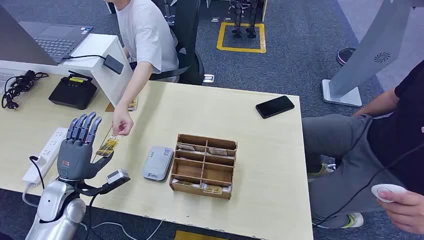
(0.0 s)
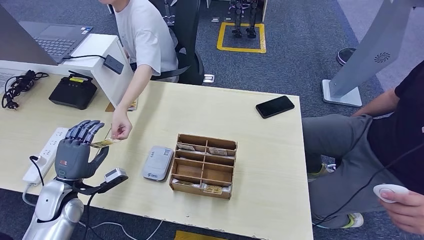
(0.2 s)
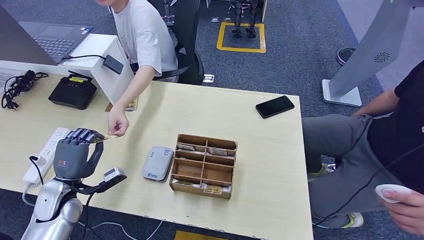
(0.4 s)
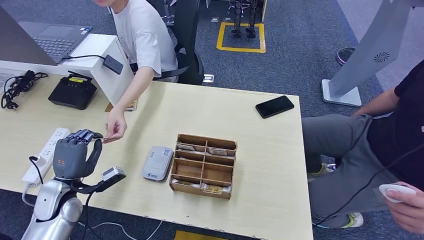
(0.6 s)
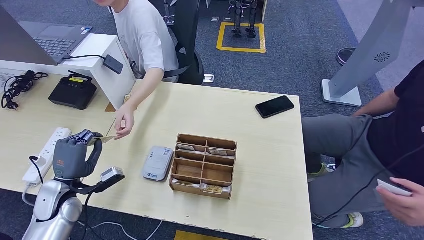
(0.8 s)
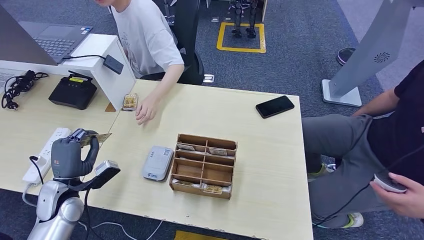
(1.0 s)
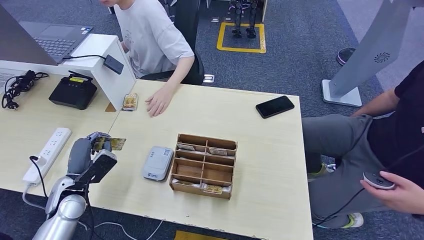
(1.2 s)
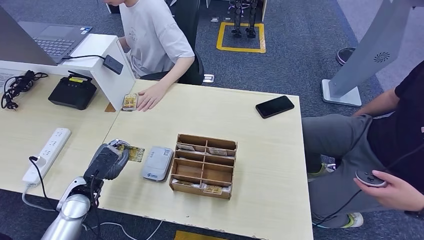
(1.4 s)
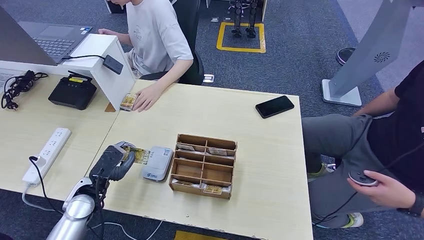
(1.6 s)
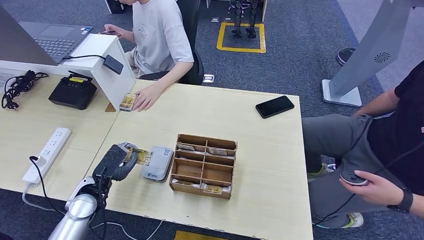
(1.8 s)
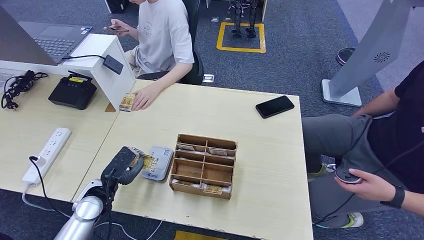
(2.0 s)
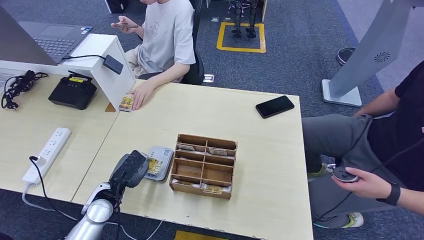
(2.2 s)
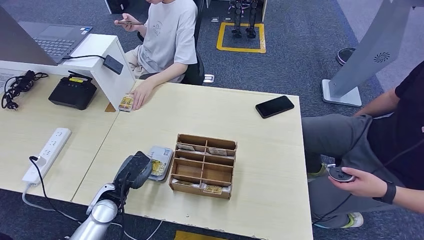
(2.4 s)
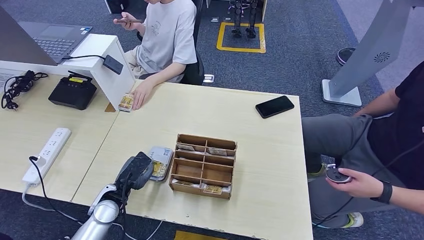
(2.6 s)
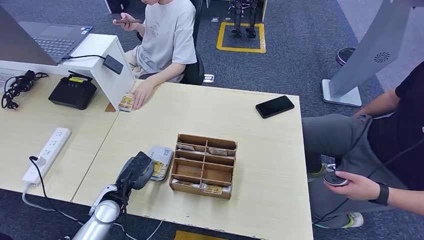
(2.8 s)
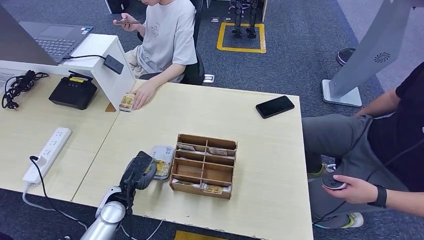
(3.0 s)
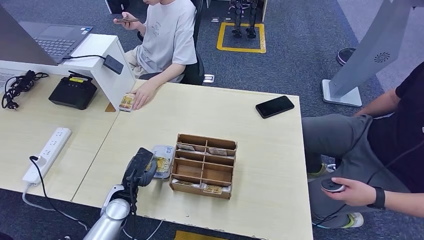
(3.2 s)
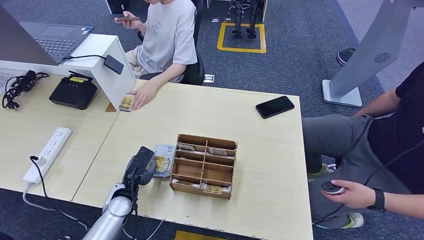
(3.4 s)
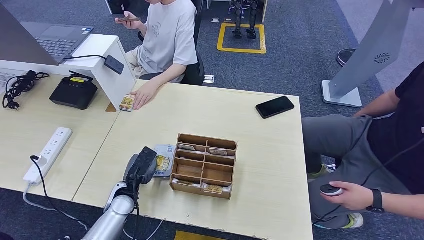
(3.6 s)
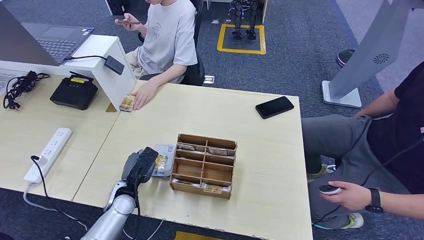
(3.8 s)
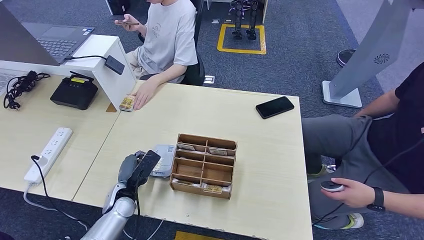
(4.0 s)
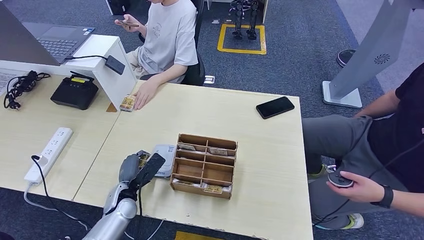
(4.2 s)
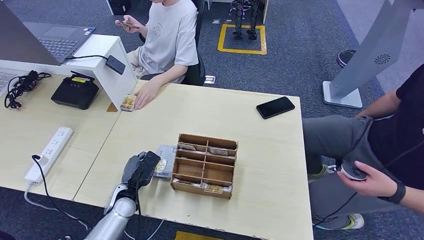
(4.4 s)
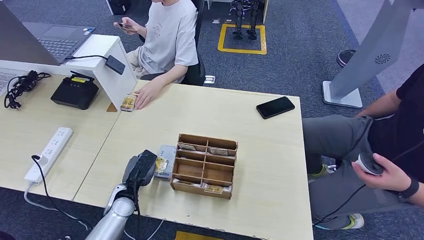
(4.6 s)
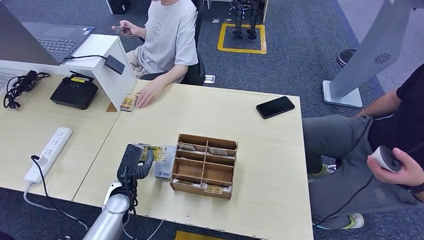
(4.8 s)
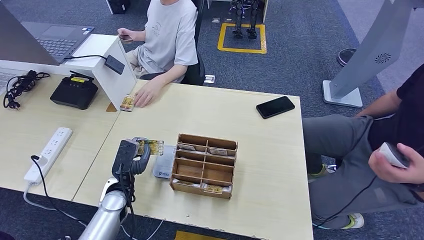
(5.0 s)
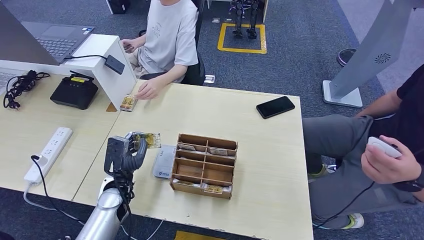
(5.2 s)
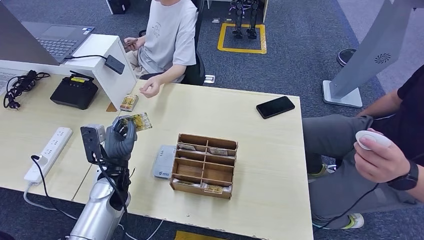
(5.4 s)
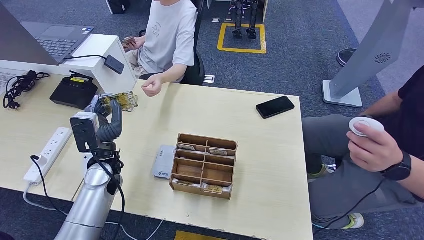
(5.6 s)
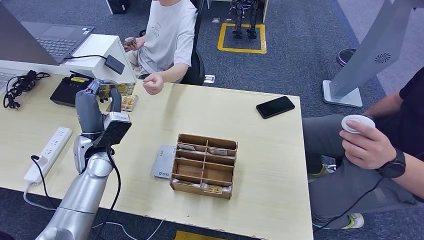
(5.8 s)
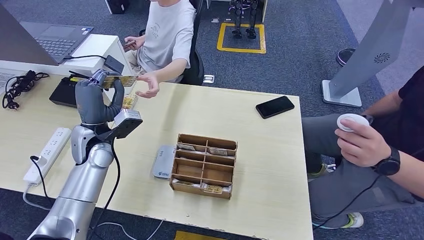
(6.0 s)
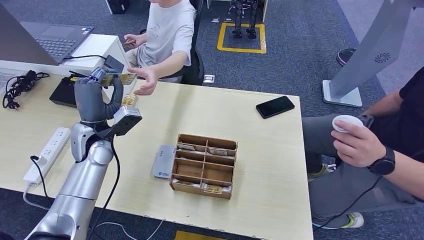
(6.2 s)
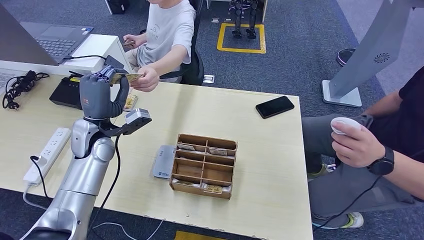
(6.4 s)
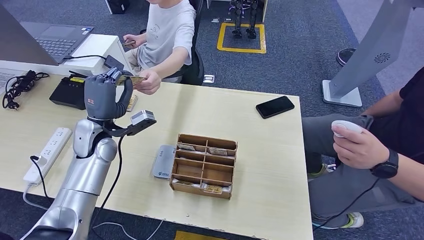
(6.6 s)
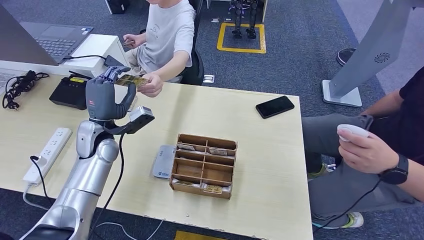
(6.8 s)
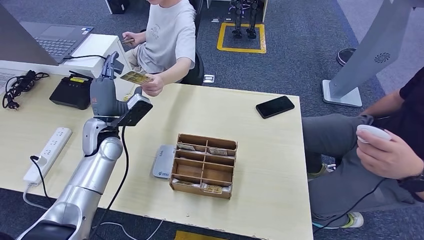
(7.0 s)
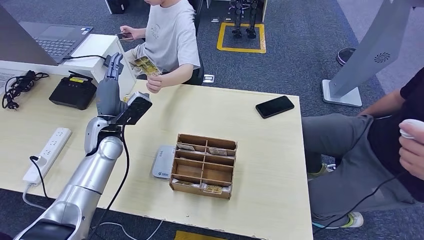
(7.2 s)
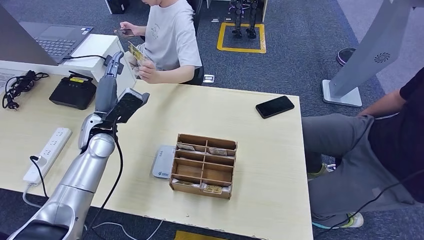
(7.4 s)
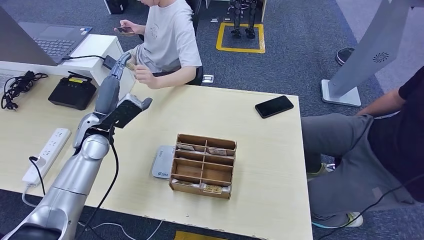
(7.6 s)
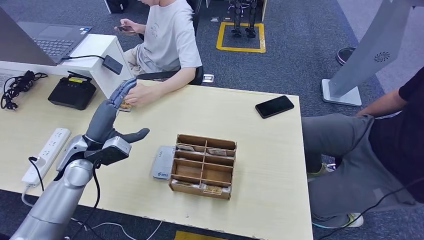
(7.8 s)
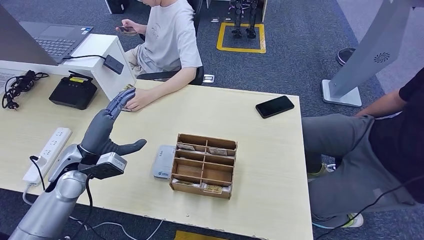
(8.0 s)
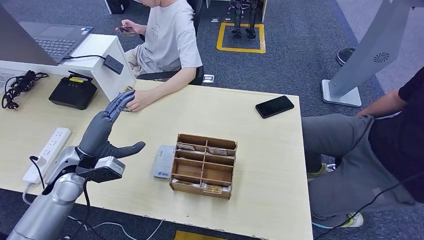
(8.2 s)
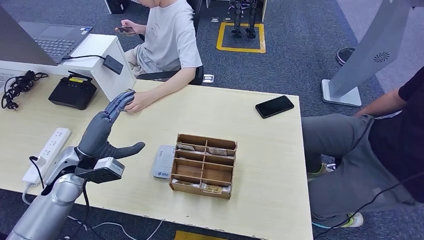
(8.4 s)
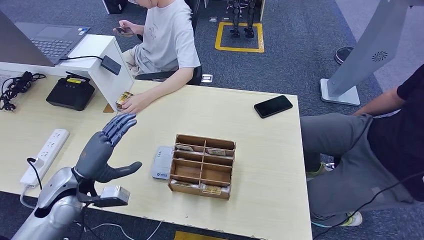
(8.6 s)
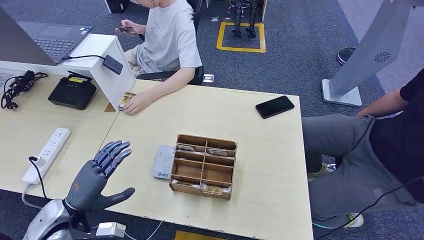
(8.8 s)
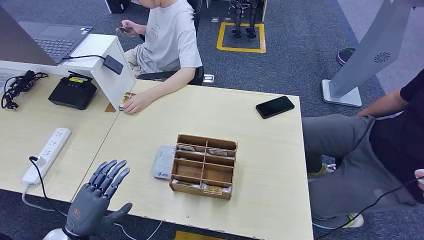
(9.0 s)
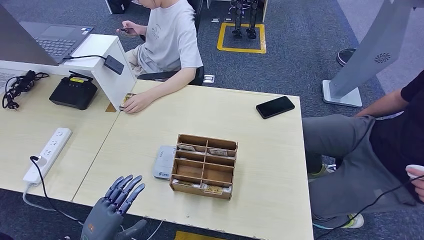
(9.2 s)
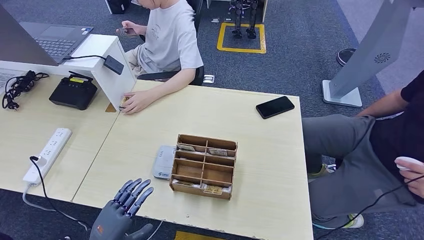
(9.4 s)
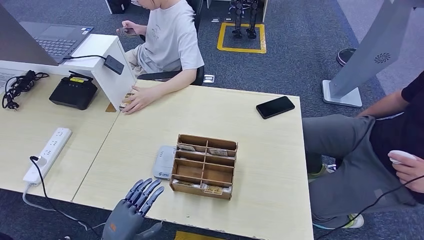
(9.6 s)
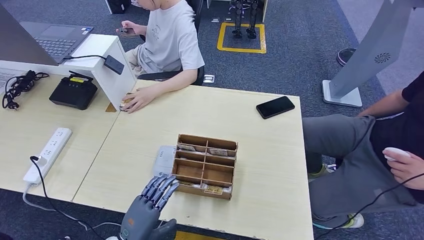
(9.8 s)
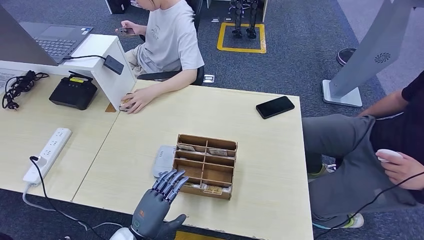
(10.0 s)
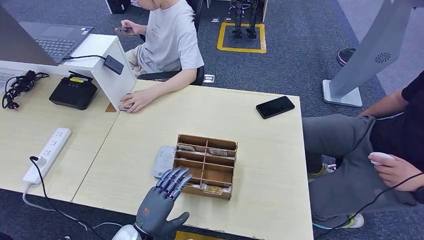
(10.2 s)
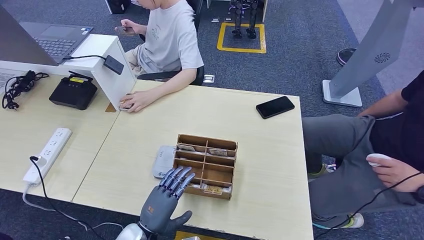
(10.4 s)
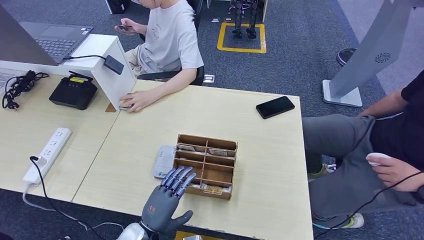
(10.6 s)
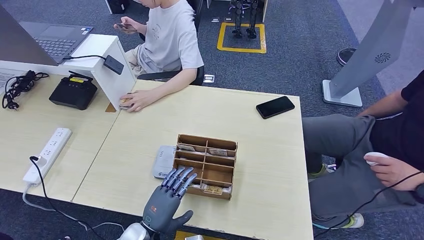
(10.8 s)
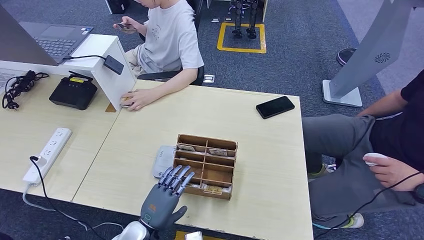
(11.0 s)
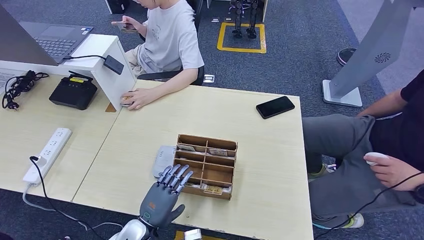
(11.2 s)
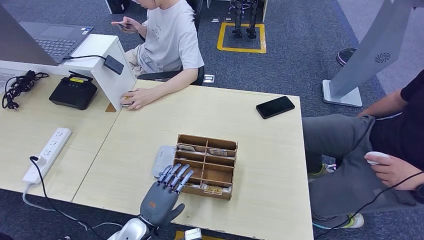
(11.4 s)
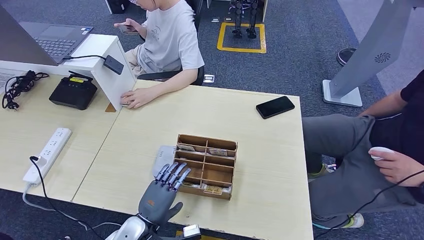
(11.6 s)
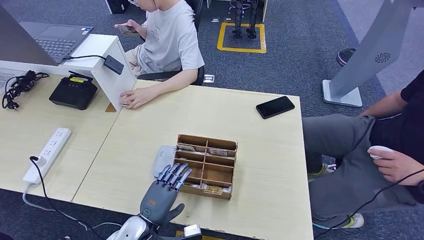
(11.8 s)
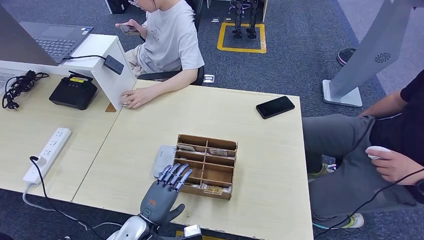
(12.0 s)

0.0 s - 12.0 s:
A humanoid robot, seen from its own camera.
Step, 0.0 s - 0.8 s: Take the ID card from the person's hand.
Step, 1.0 s - 4.6 s: Place the ID card on the card reader.
Step, 4.8 s - 7.2 s: Hand the ID card to the person.
1.6 s - 3.0 s: The left hand moves to the right, some 5 cm.
7.6 s - 9.0 s: The left hand moves backward and downward, approximately 25 cm.
9.0 s - 10.4 s: The left hand goes approximately 15 cm to the right.
10.4 s - 12.0 s: There are only small adjustments of the hands.

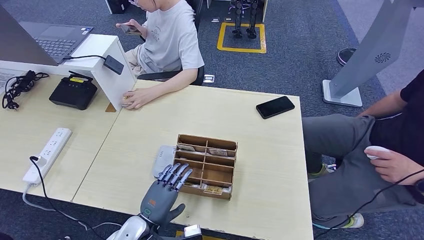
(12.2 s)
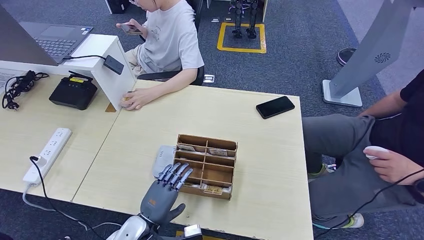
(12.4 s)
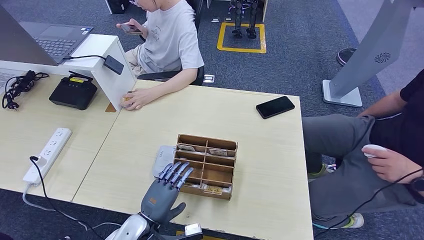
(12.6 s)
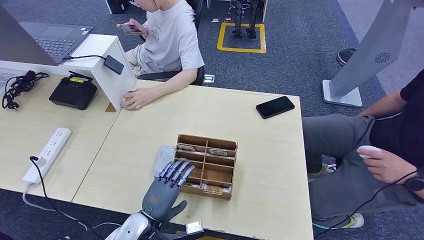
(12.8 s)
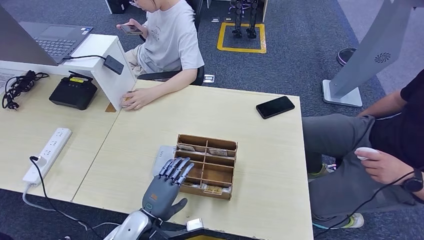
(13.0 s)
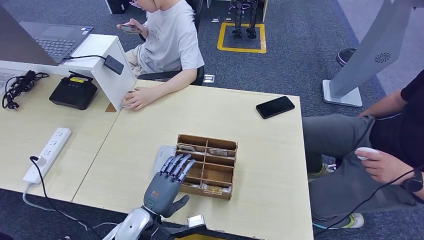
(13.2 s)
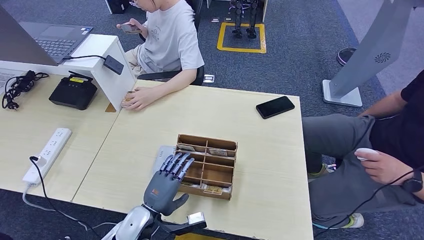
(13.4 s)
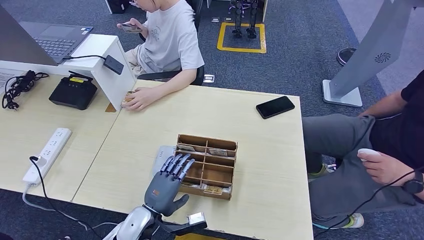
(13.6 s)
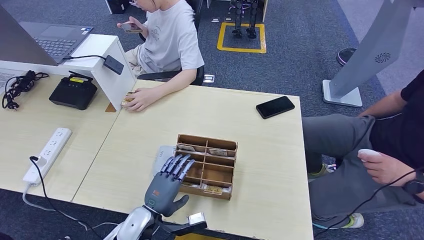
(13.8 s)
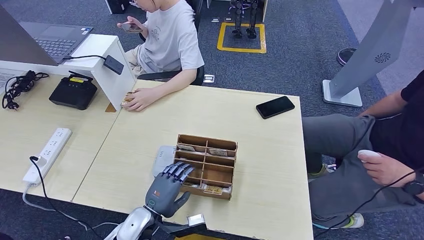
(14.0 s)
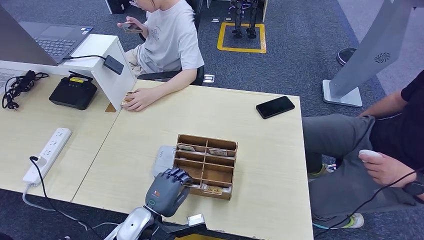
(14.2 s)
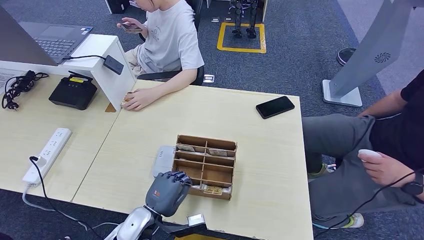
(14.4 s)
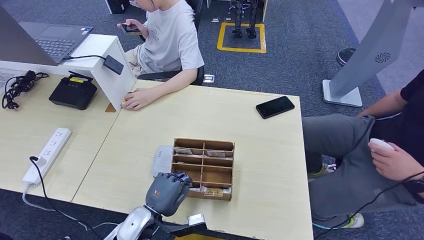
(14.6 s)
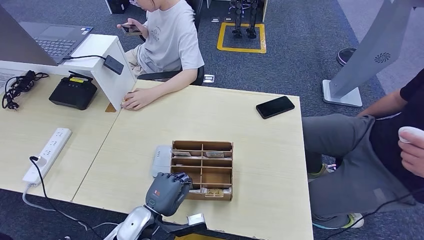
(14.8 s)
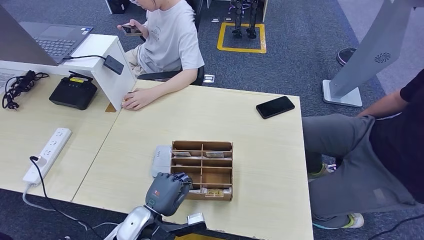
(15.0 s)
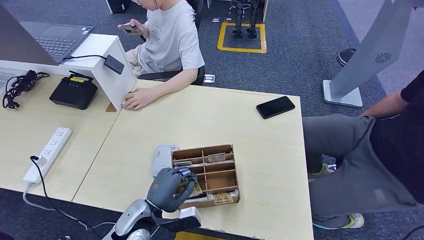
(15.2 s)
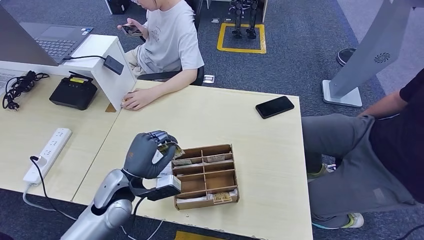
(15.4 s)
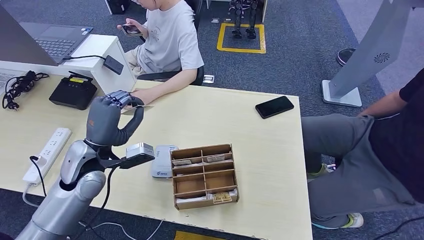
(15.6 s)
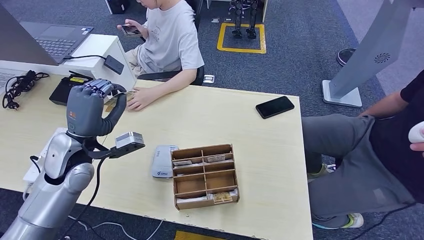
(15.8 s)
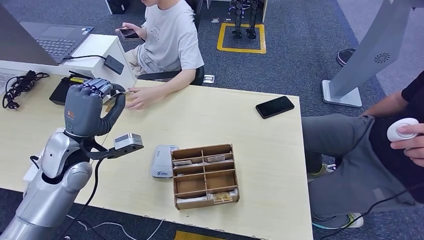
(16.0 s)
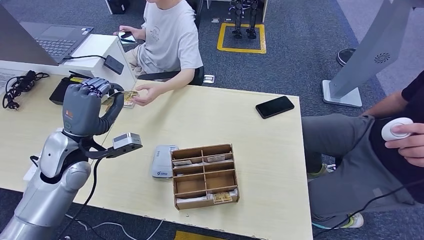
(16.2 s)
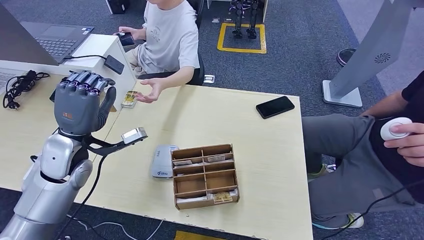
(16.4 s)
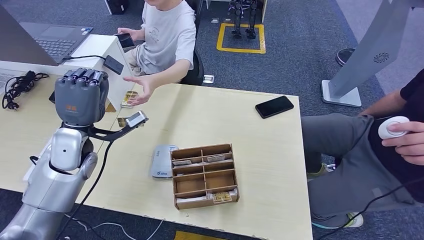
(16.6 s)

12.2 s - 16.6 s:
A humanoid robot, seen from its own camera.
Step, 12.2 s - 15.4 s: Pick up the room key from the key card box.
Step, 15.6 s - 16.6 s: Hand the room key to the person.
12.2 s - 13.6 s: The hands move only a little.
